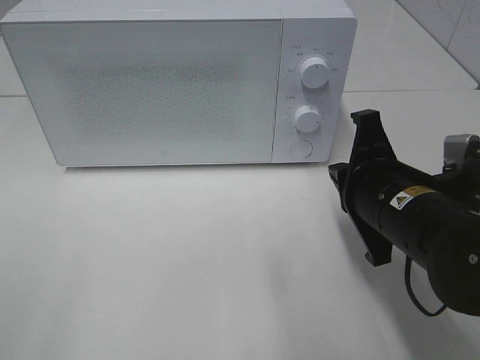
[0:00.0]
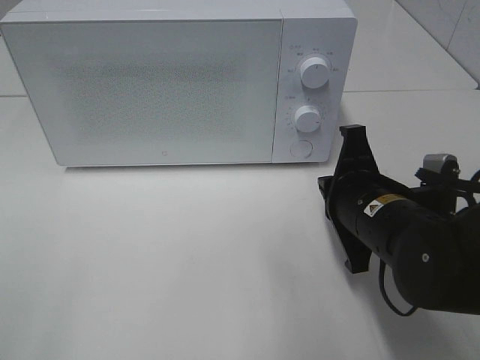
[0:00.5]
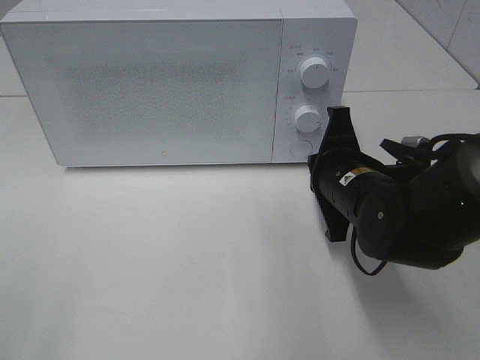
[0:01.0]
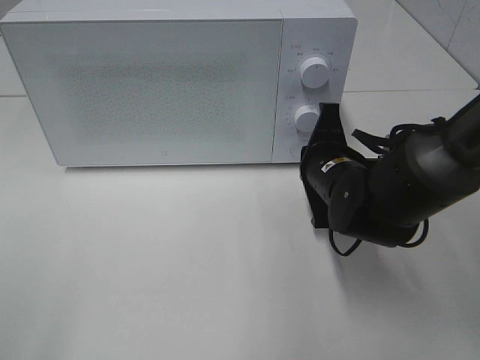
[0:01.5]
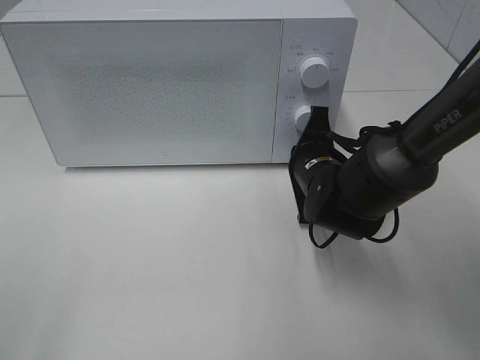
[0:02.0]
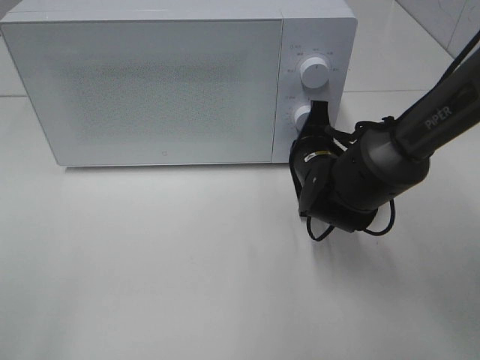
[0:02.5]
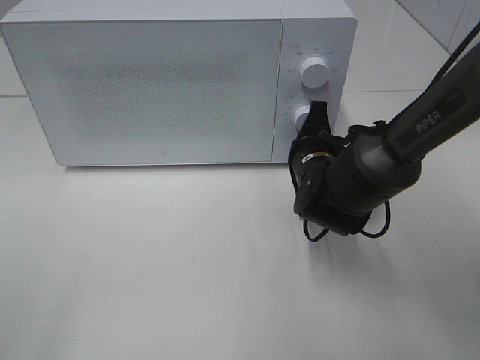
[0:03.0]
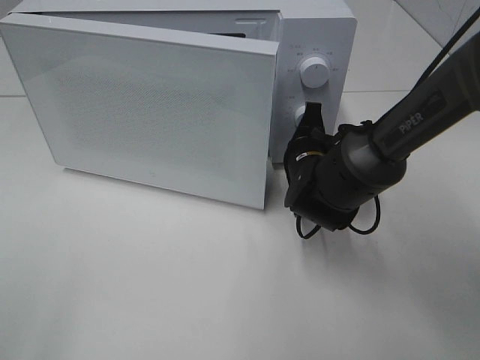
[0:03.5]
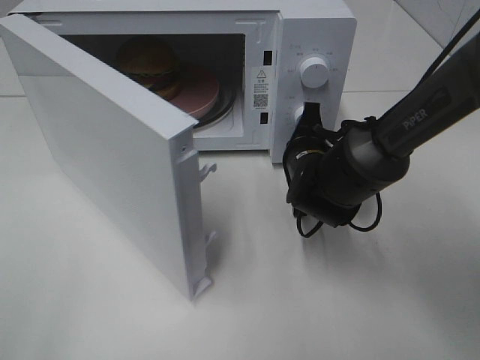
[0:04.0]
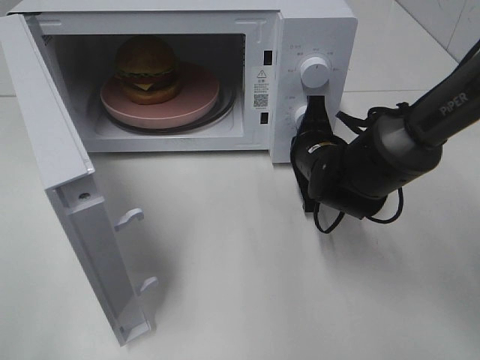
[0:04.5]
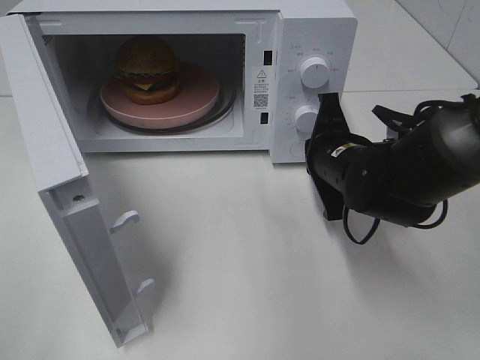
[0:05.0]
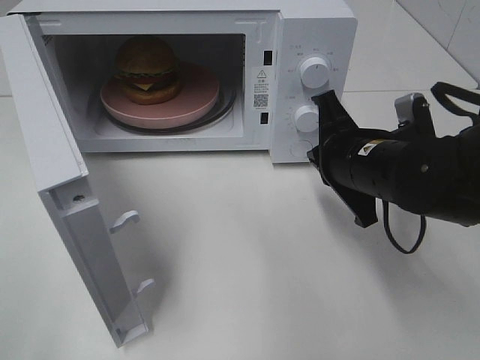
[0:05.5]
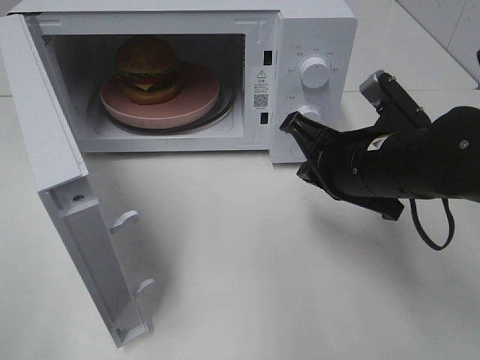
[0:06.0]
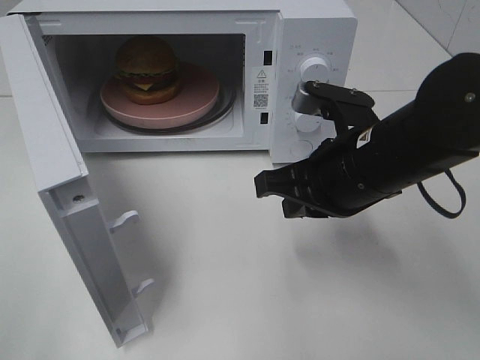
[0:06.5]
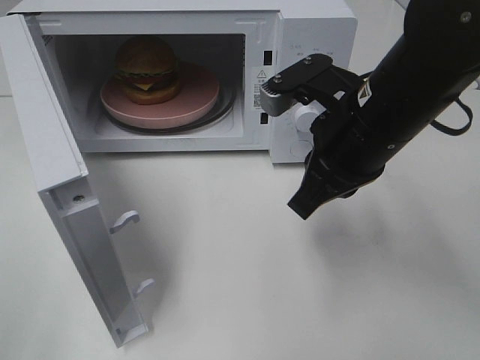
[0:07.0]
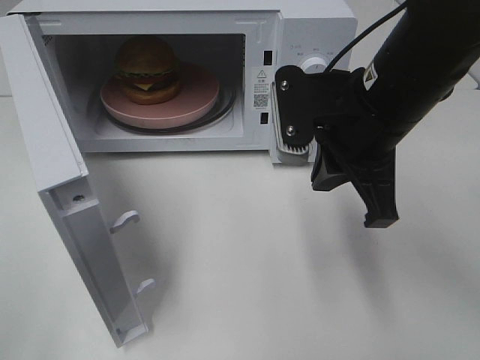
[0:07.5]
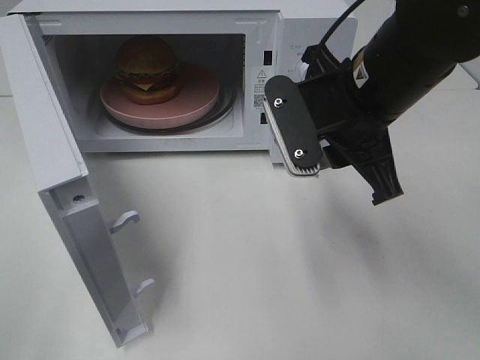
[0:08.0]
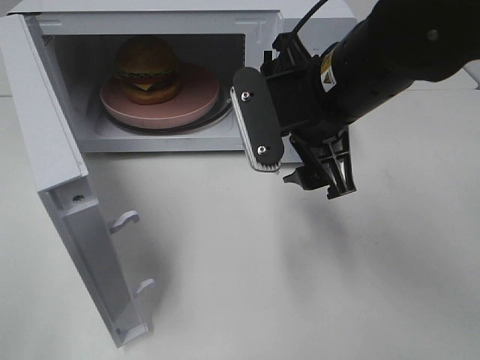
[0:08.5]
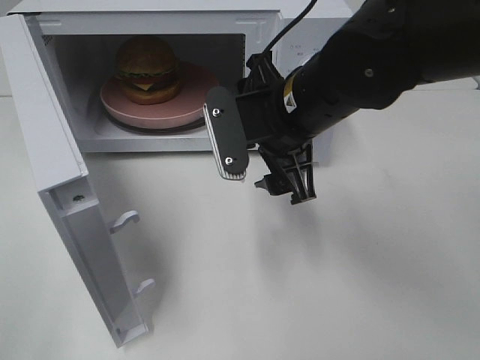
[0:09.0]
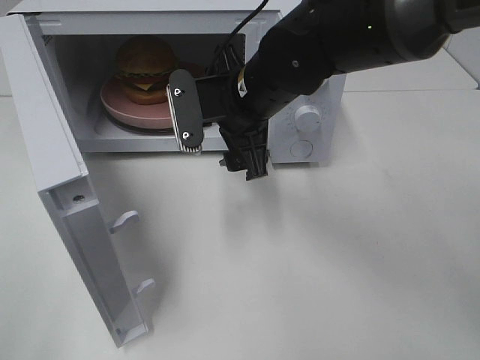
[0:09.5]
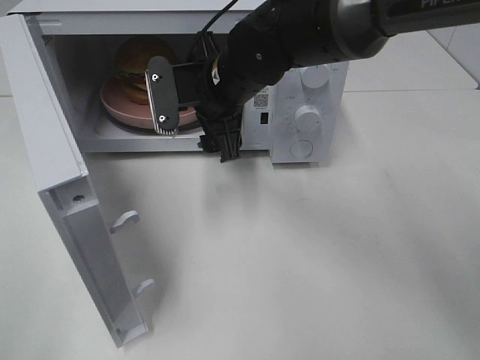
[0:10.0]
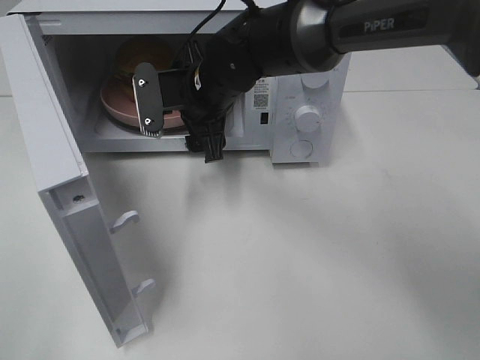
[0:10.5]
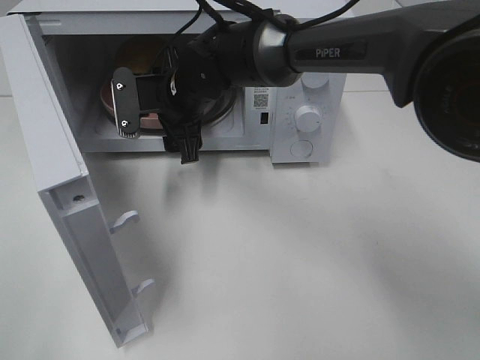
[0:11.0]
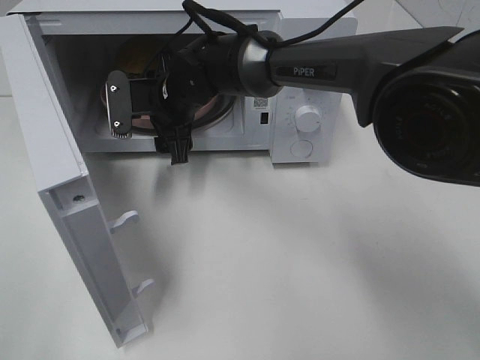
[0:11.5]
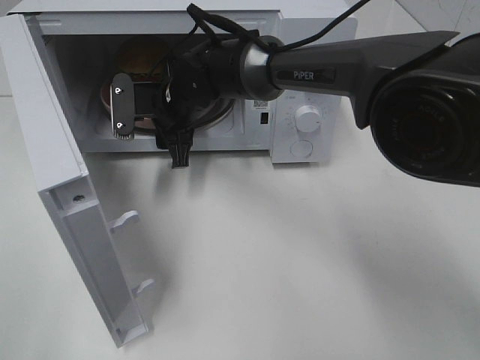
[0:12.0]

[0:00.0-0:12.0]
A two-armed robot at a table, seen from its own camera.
Task of the whole recording: Heat the burger.
Step, 0.0 to 5.0 s: Right hand: press the switch.
0.0 to 2.0 s: The right gripper heads forward and downward, covering about 15 cm.
4.0 to 6.0 s: The right gripper travels backward and upward by some 15 cm.
6.0 to 8.0 s: The right gripper goes some 10 cm upward, and opens up.
8.0 to 10.0 s: The right gripper goes about 15 cm to the left, forward and downward, and opens up.
10.0 to 12.0 s: The right gripper goes some 10 cm to the left, downward and forward.

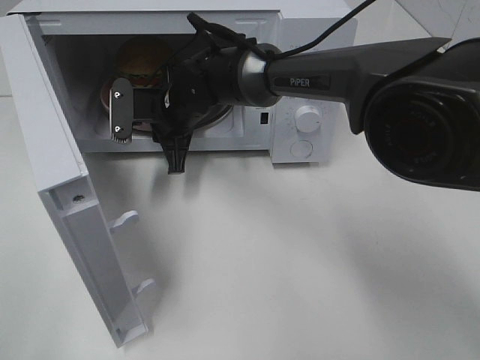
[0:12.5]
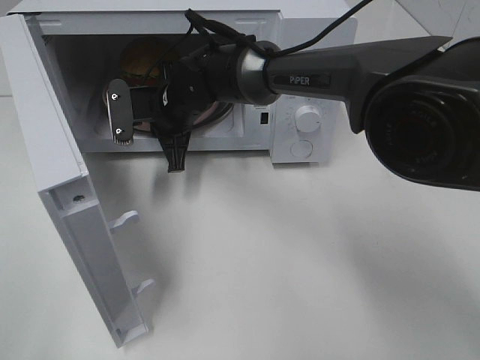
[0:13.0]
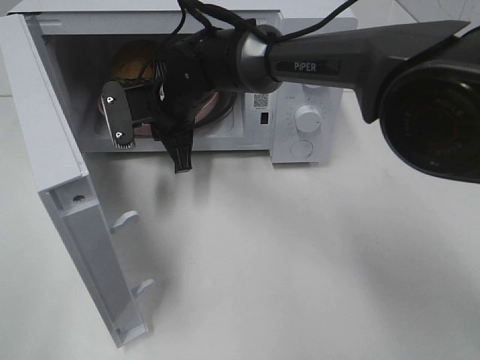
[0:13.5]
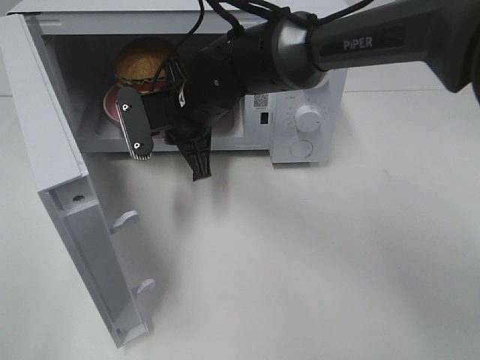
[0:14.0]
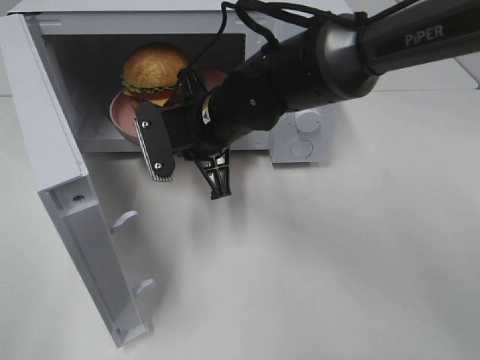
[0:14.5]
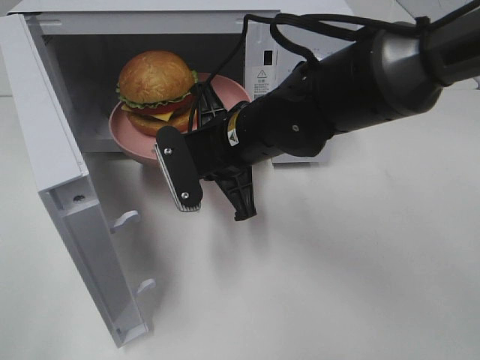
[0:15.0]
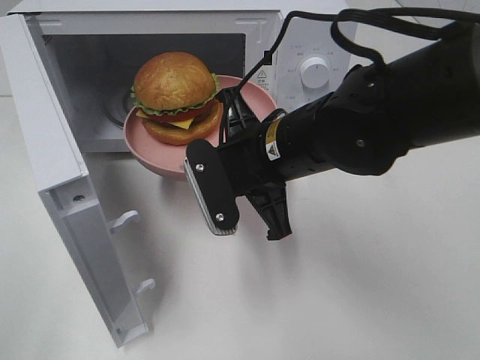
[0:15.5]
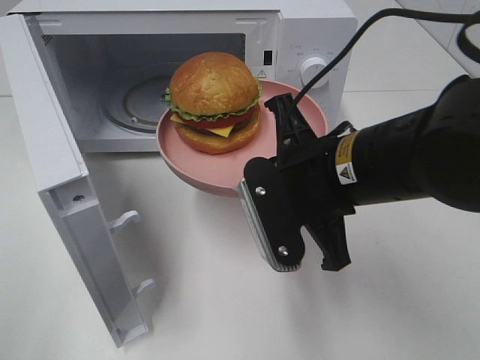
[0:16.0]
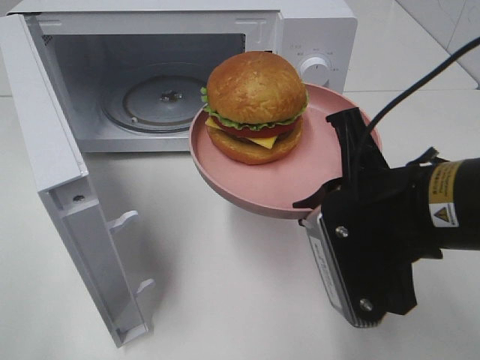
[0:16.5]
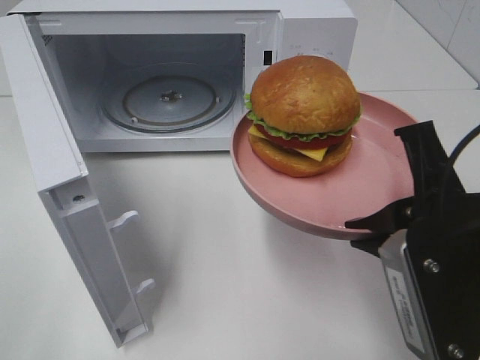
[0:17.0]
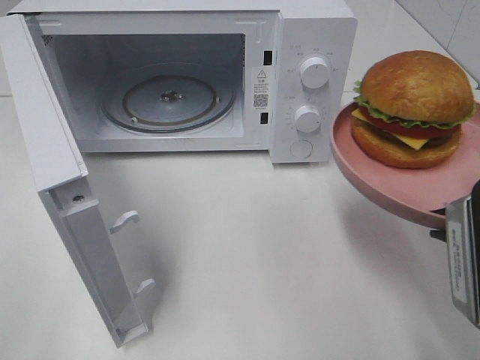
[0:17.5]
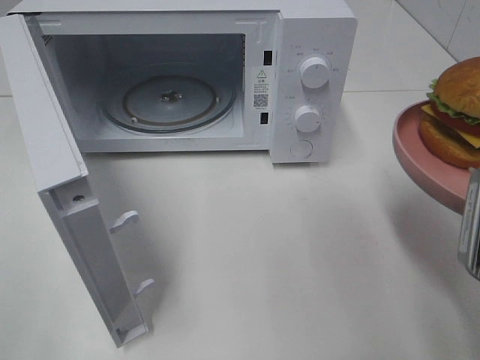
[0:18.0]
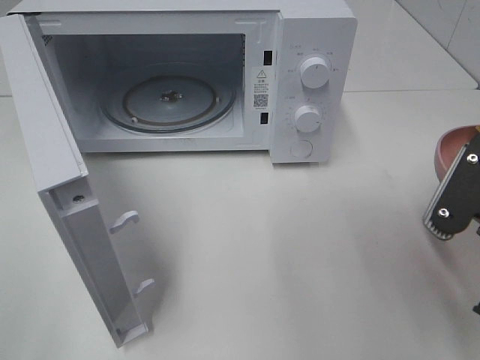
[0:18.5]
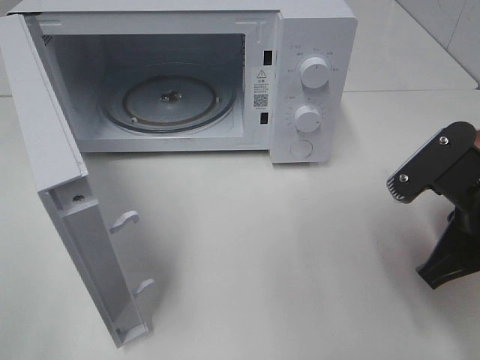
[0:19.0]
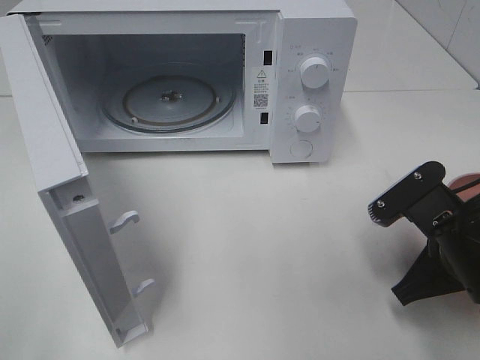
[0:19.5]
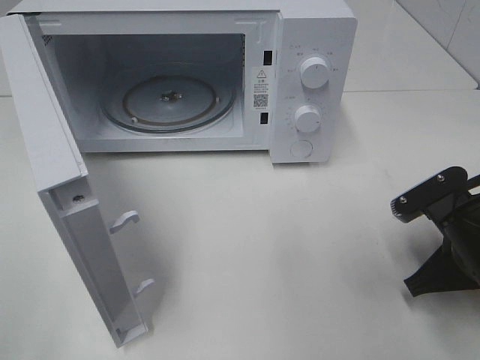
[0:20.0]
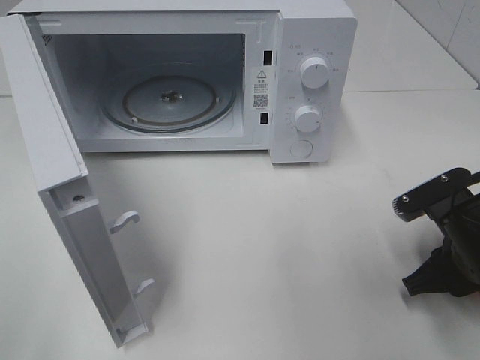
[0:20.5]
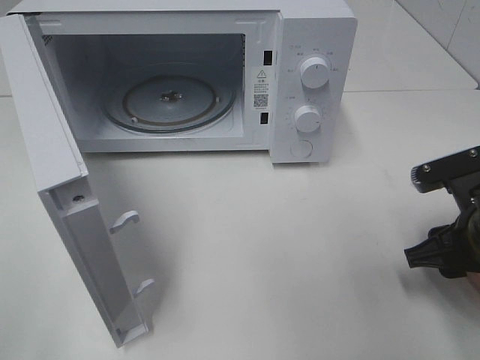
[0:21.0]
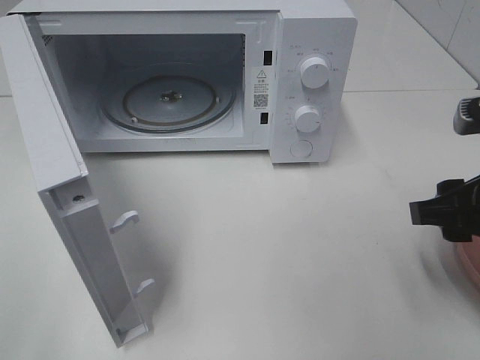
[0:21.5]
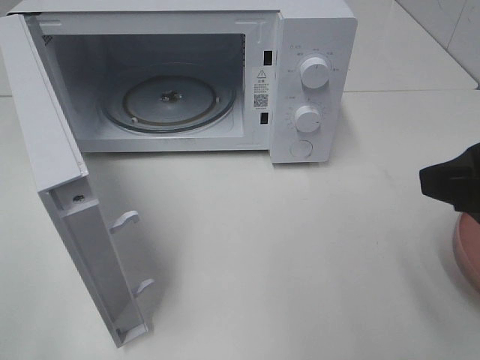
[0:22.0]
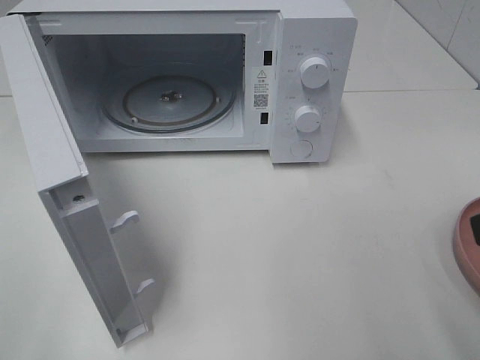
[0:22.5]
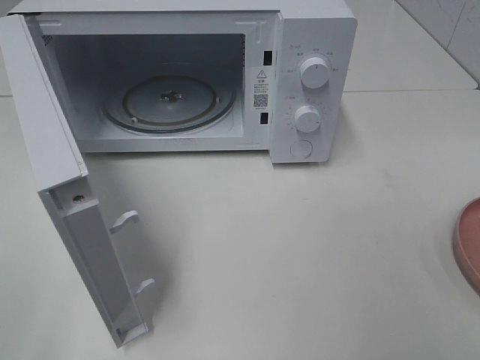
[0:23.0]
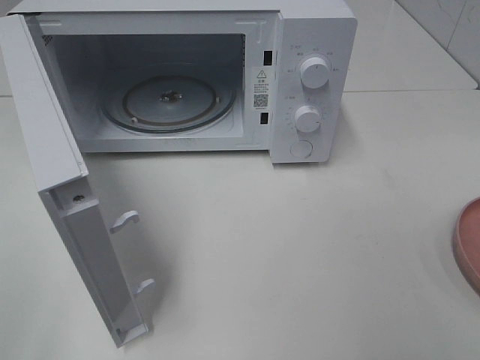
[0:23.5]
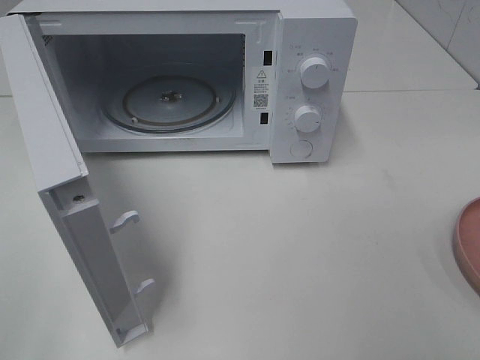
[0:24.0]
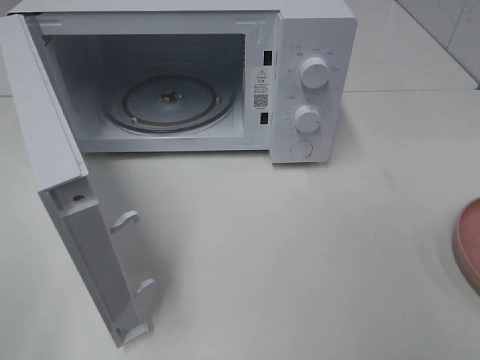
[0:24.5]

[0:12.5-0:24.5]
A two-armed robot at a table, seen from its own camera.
Task of the whole recording: Heat the burger.
Step, 13.5 to 21.0 s: Right hand: place the plate on the table.
12.5 to 14.5 s: The right gripper is displaced backward and to the right by roughly 10 cm.
14.5 to 16.5 s: The right gripper is displaced backward and to the right by about 25 cm.
16.5 to 18.5 s: The right gripper is displaced to the right by about 10 cm.
18.5 to 20.5 s: The right gripper is displaced downward and forward by some 15 cm, and opens its fingers.
20.5 to 22.5 s: The right gripper moves upward and backward, roughly 20 cm.

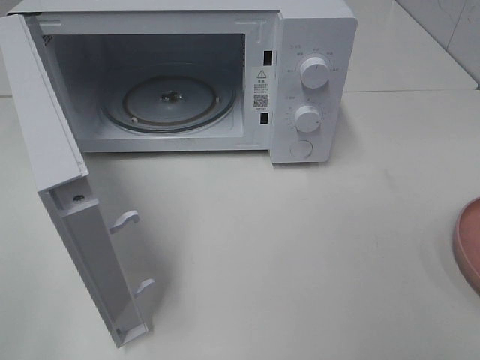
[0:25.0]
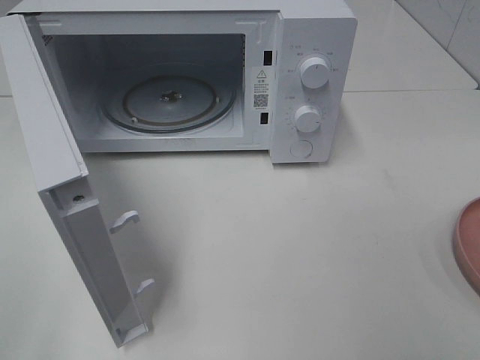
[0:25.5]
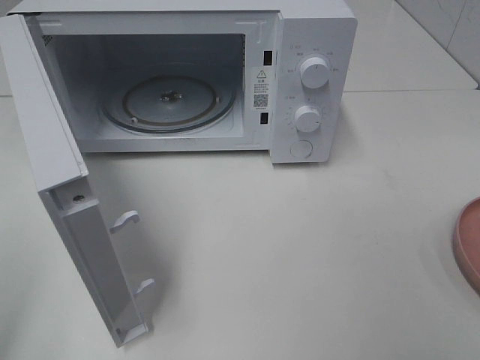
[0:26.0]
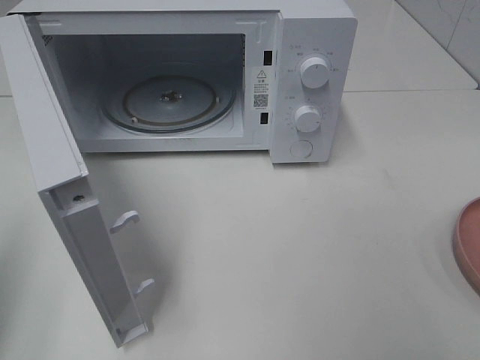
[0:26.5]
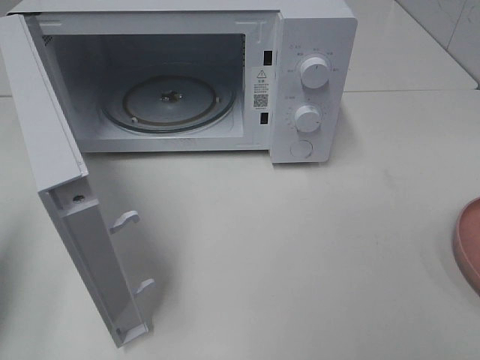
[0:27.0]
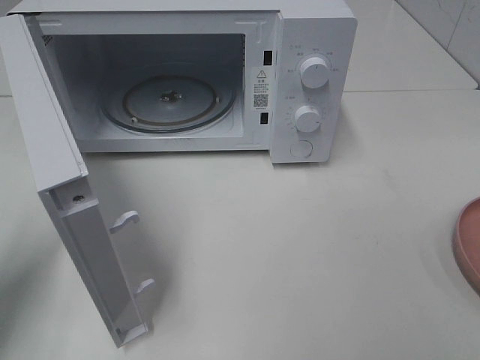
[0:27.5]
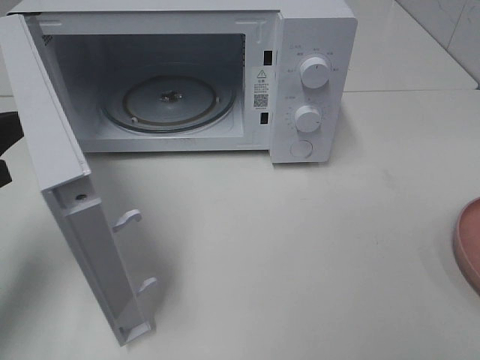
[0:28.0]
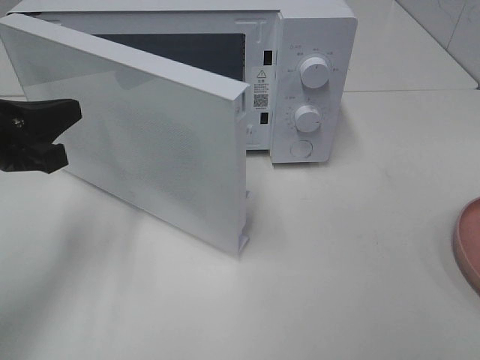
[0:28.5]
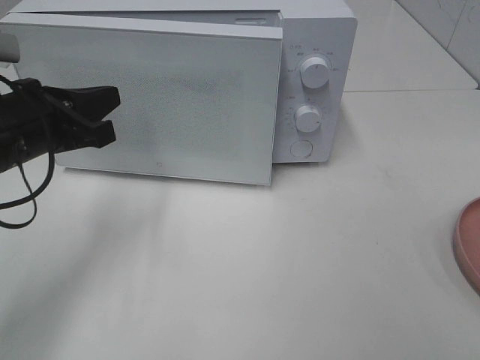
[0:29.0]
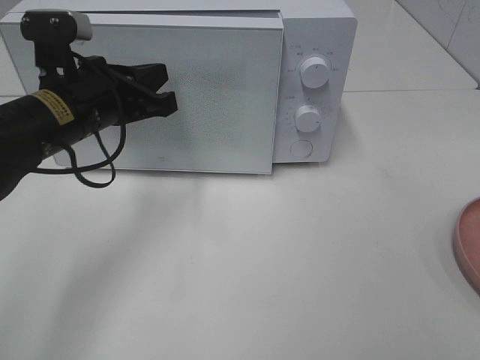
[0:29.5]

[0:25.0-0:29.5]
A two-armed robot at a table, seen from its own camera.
Task of the whole recording: Heat the burger.
25.0 to 27.0 s: The left gripper is displaced forward by about 15 cm, and closes.
27.0 to 29.5 s: The left gripper heads to the right and forward, covering about 25 cm.
